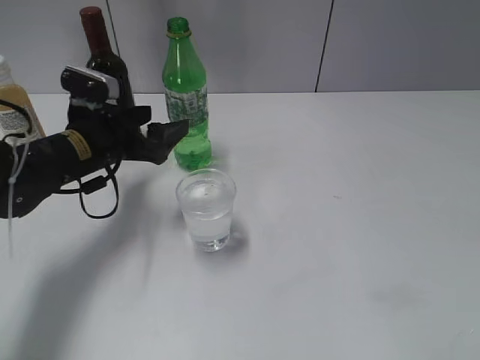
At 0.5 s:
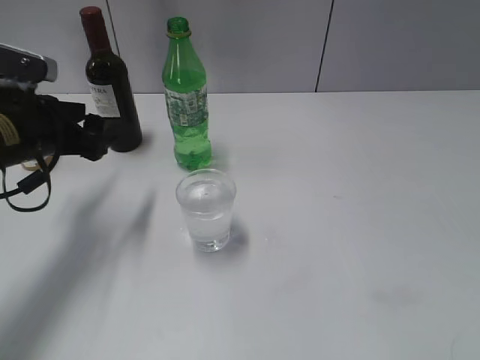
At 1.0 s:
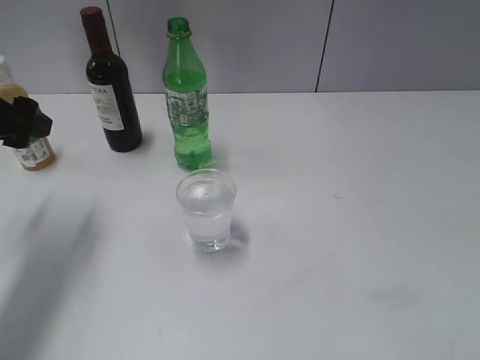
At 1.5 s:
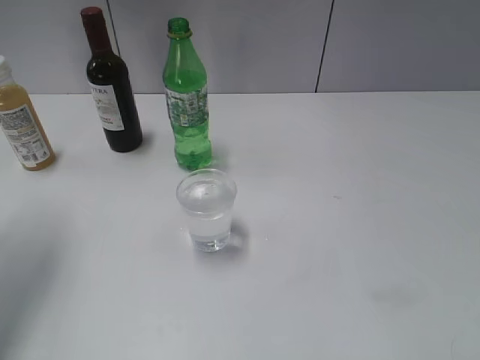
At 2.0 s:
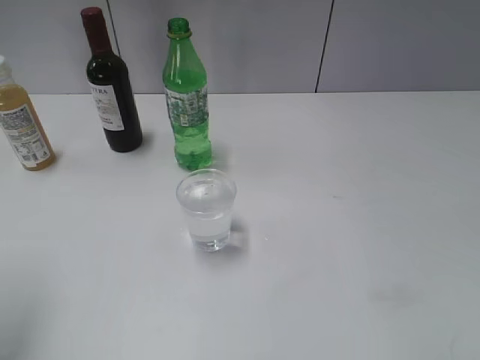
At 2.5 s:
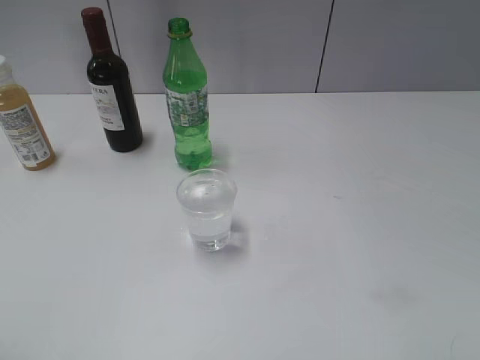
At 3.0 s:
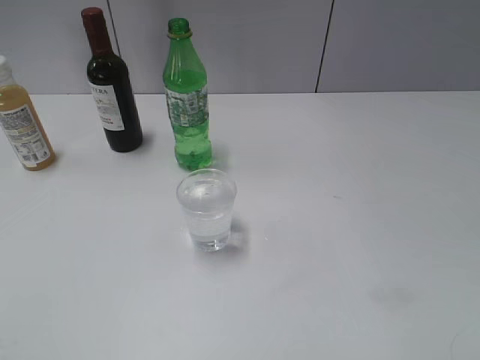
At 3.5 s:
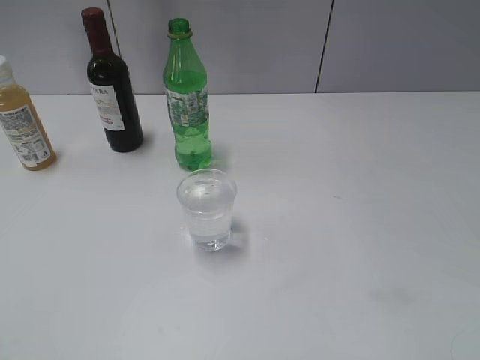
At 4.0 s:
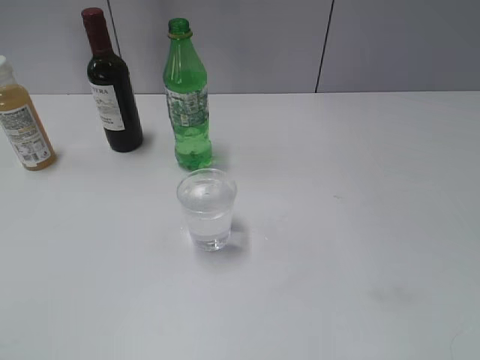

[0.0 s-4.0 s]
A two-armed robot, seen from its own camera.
0.0 to 2.0 s: The left gripper goes some 30 cm upward, backward and to the left.
2.0 to 4.0 s: The left gripper goes approximately 20 cm backward.

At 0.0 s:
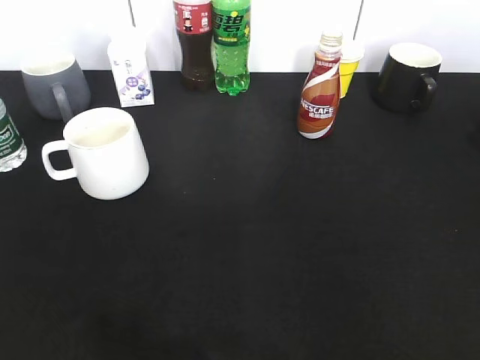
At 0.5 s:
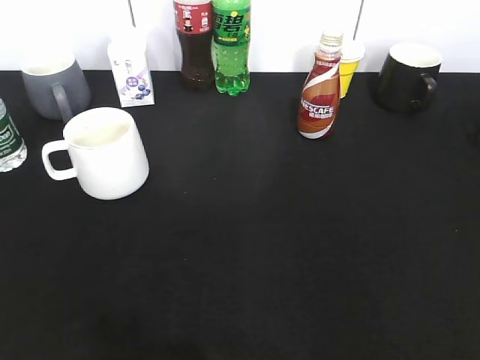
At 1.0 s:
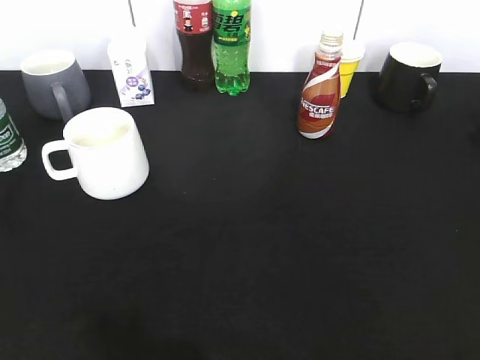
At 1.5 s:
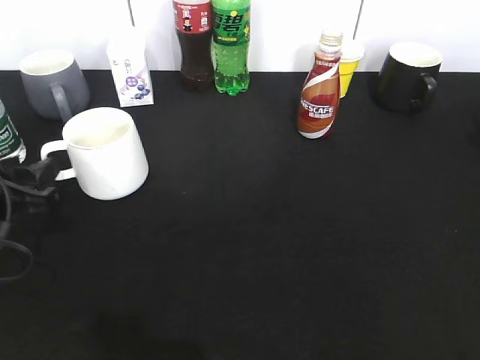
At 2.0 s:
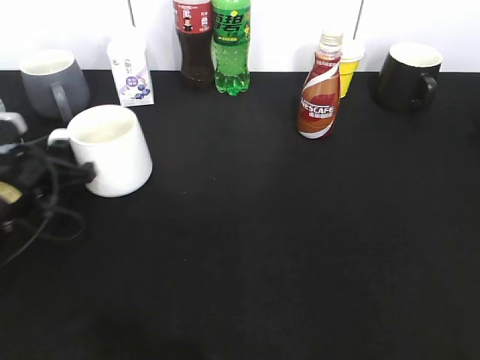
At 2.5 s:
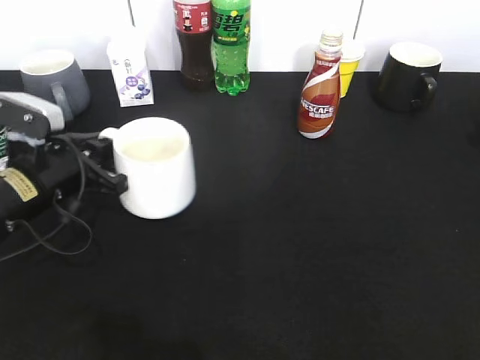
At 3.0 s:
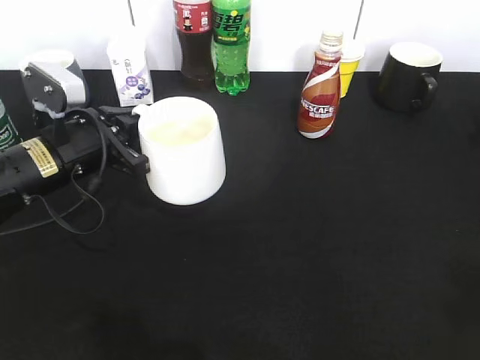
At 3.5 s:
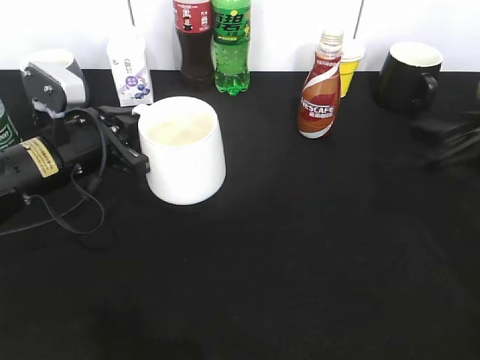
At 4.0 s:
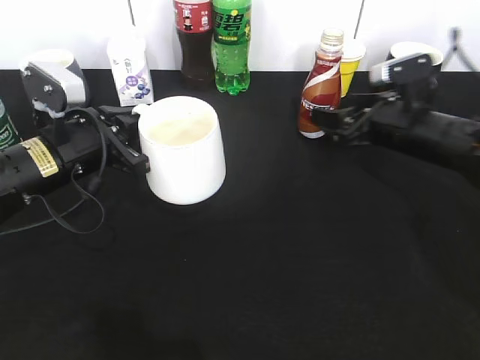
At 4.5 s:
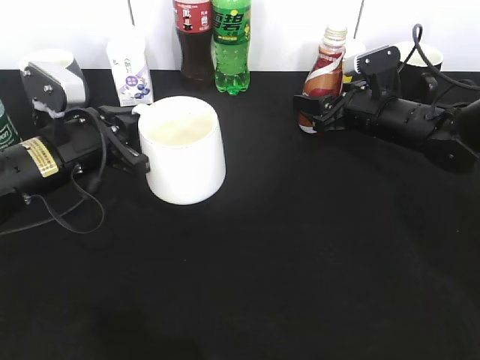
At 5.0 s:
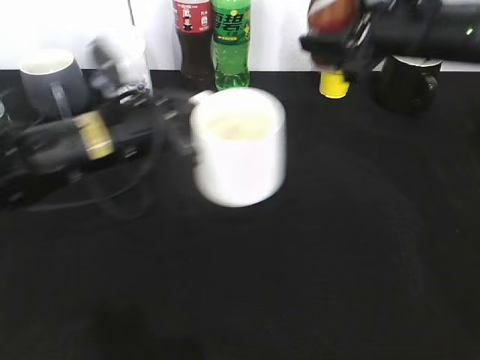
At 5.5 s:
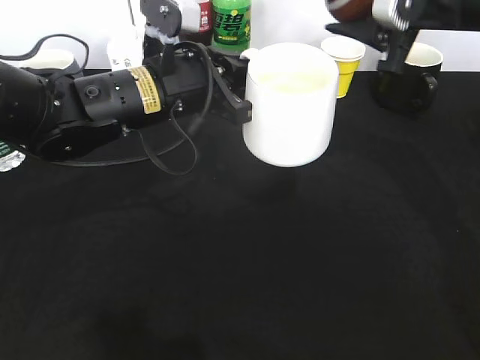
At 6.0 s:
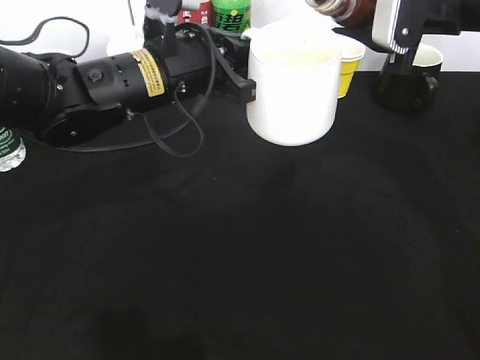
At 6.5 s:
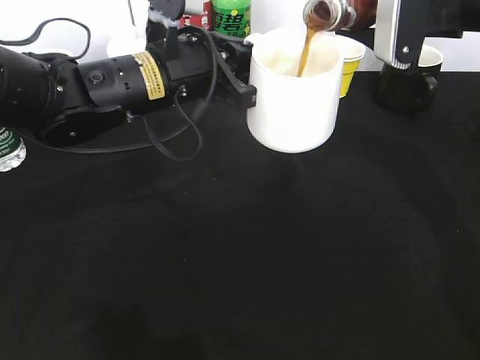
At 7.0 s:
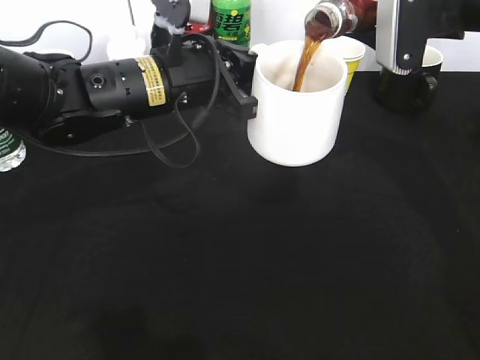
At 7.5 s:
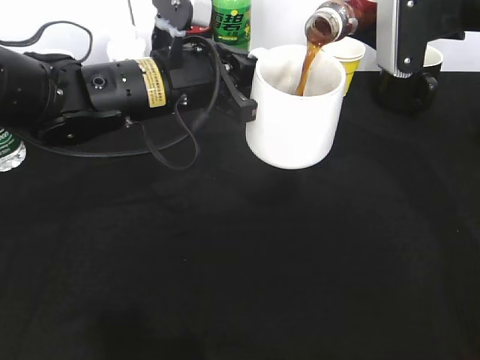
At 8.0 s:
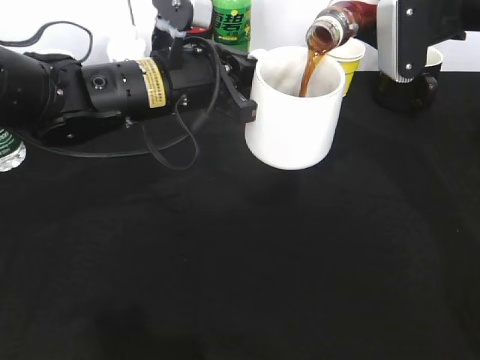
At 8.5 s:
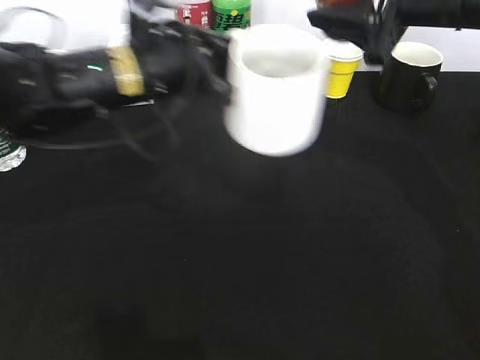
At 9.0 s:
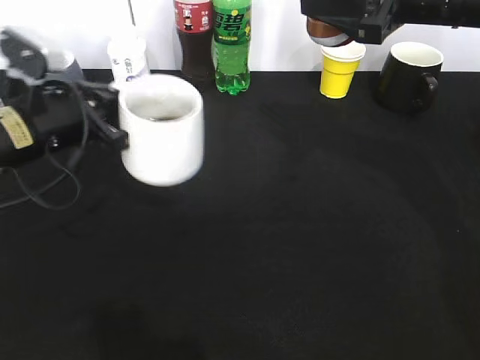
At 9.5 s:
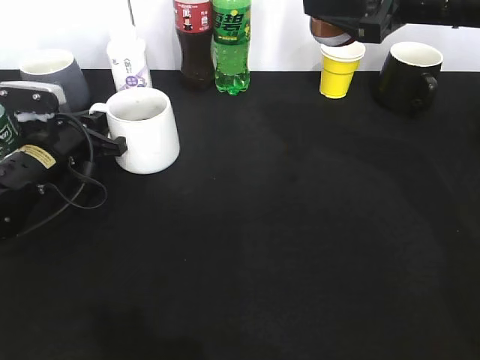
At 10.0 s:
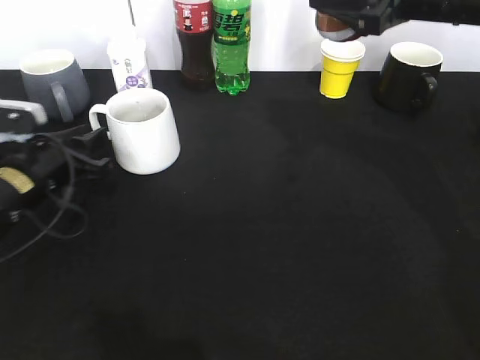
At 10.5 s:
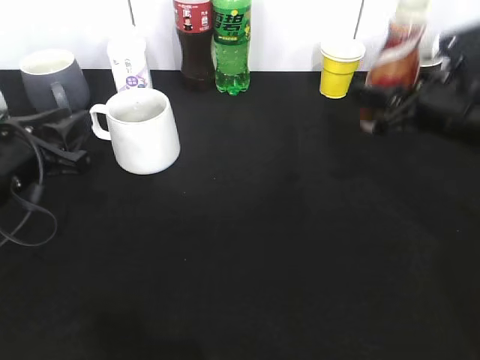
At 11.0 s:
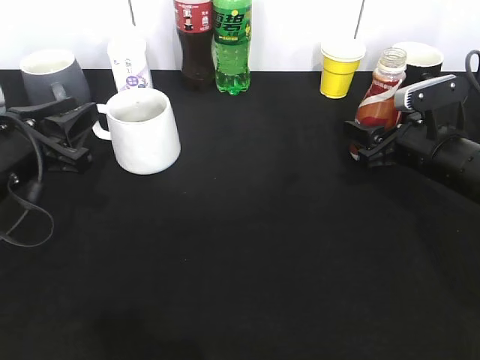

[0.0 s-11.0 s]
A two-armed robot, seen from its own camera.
Step, 1.0 to 2.0 s: Grasp the white cup with left gripper.
Step, 3.0 to 4.0 s: Grasp the bottle with coffee with right gripper.
Step, 5.0 to 8.5 s: Pour the coffee from bottle to cup with right gripper.
Step, 9.0 to 10.0 s: Place the white cup on the table with left gripper.
0.0 to 2.0 s: The left gripper shifts some 35 cm forward and downward, and closes up.
2.0 to 3.5 s: The right gripper is displaced forward and downward by approximately 30 cm; the left gripper goes some 5 cm to the right, and closes.
3.5 to 5.5 s: The left gripper travels to the right and upward by approximately 15 cm. The right gripper goes roughly 15 cm upward, forward and to the left, and closes its fingers.
7.5 to 9.0 s: The left gripper is displaced to the left by roughly 15 cm.
9.0 to 11.0 s: The left gripper opens up. The right gripper is displaced downward by about 20 cm.

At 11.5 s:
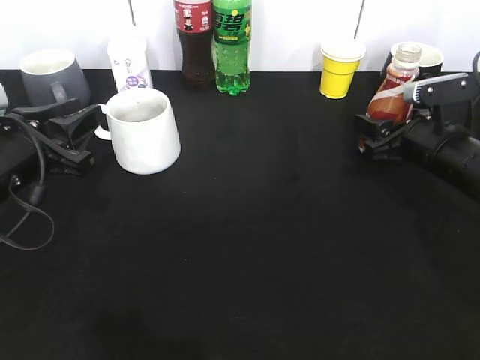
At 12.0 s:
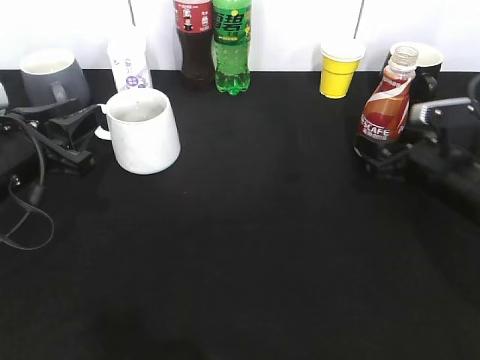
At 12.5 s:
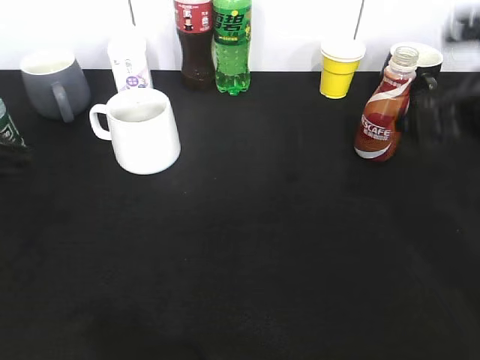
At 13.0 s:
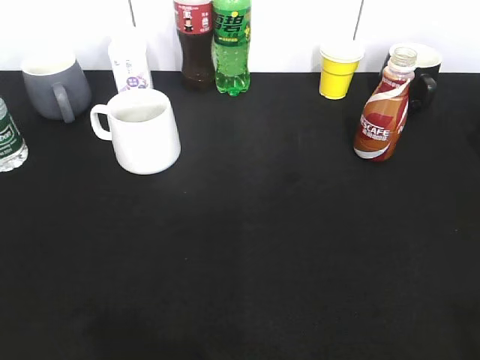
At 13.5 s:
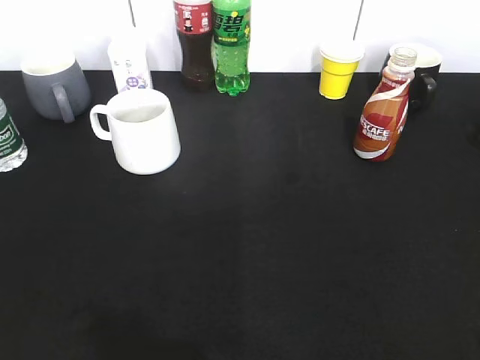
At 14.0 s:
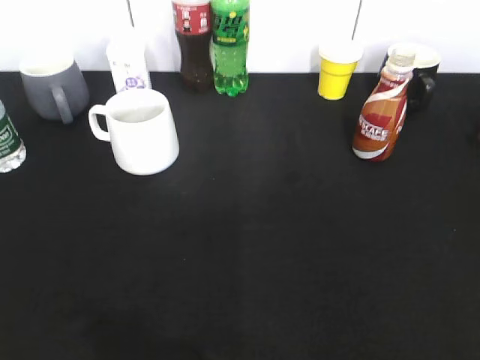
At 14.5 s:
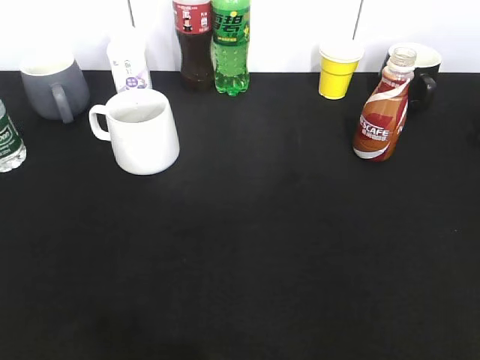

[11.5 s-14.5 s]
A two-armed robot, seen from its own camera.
11.5 to 13.0 s: The two grippers go roughly 35 cm backward and upward. The right gripper opens its fingers.

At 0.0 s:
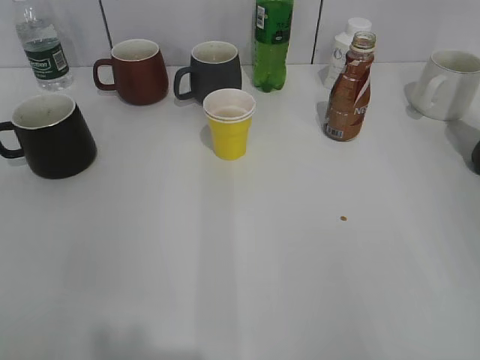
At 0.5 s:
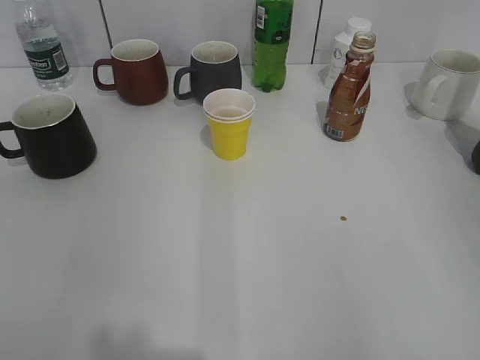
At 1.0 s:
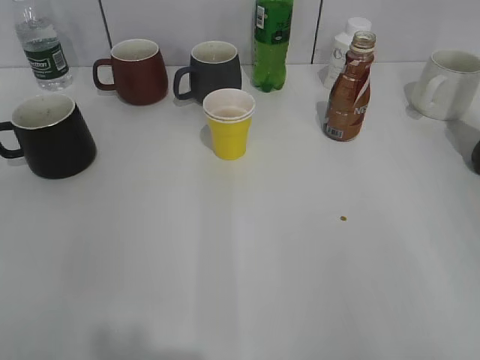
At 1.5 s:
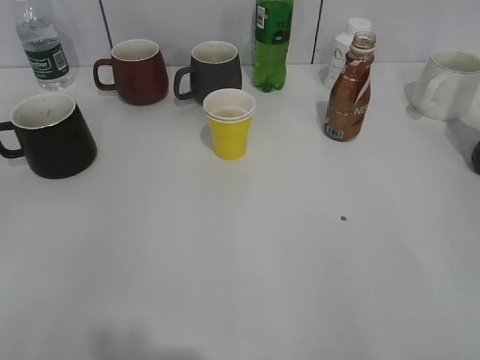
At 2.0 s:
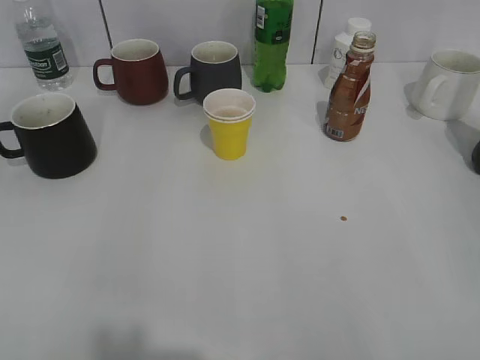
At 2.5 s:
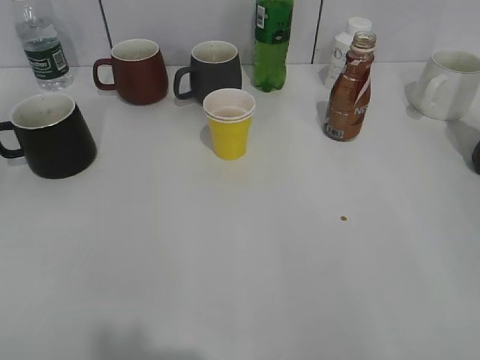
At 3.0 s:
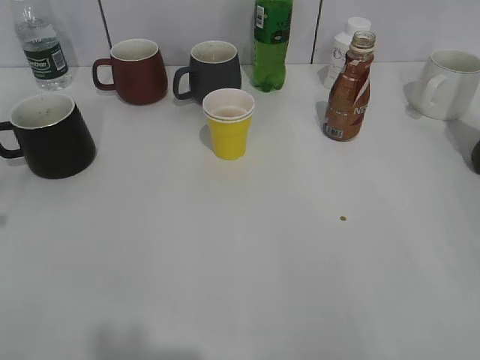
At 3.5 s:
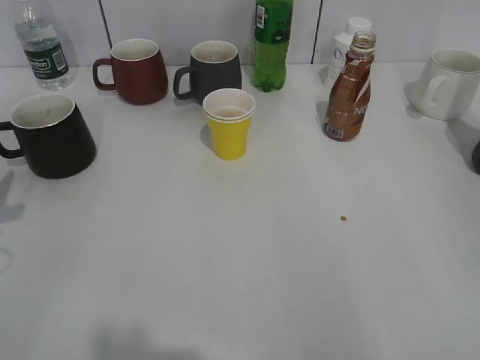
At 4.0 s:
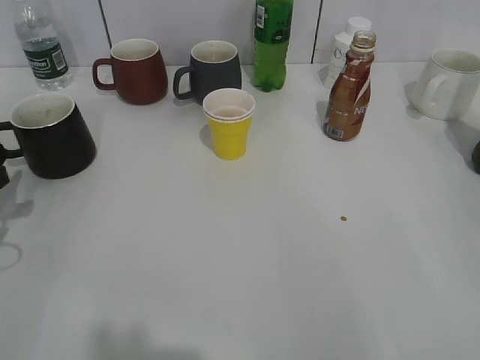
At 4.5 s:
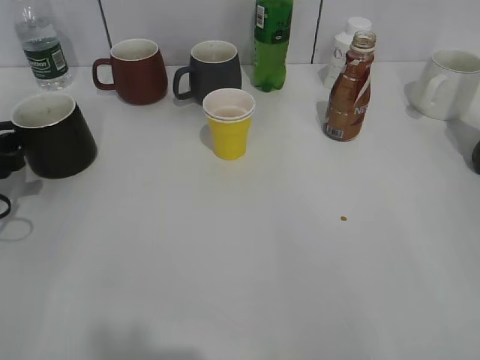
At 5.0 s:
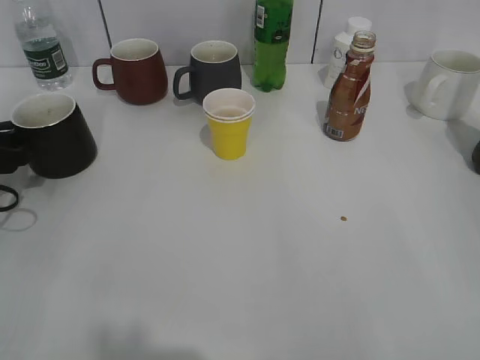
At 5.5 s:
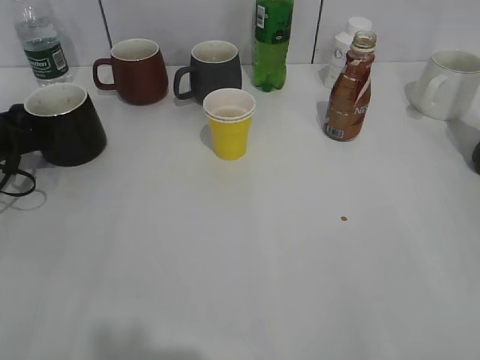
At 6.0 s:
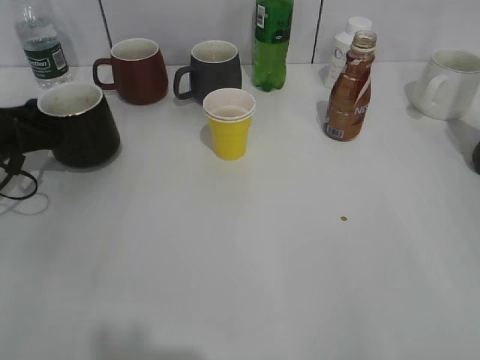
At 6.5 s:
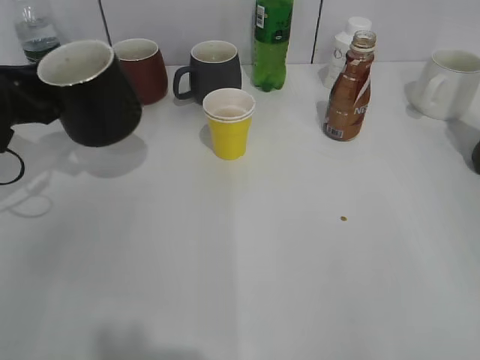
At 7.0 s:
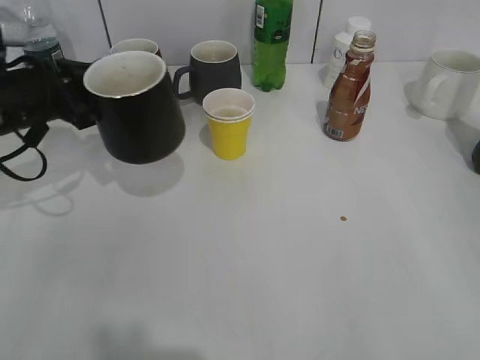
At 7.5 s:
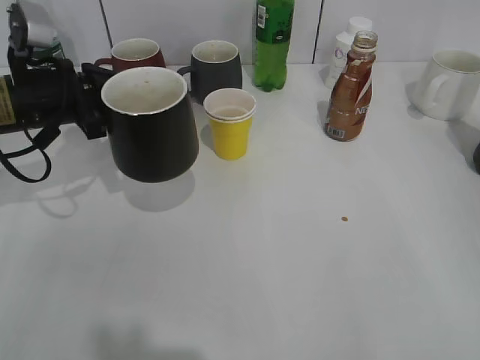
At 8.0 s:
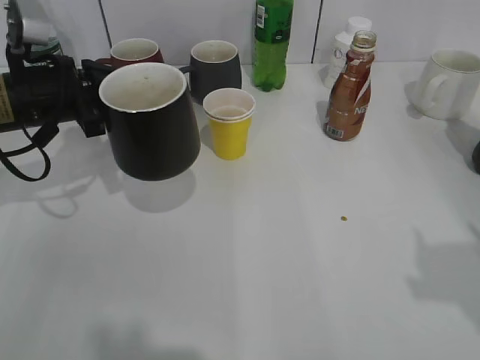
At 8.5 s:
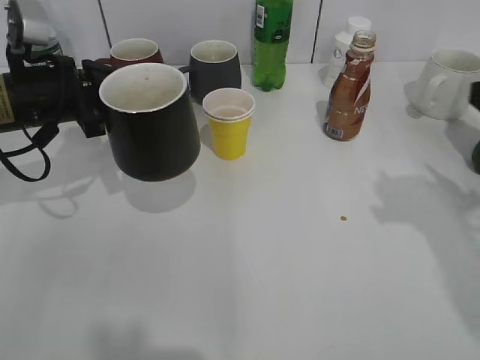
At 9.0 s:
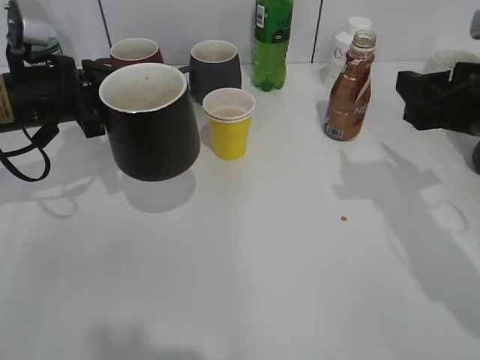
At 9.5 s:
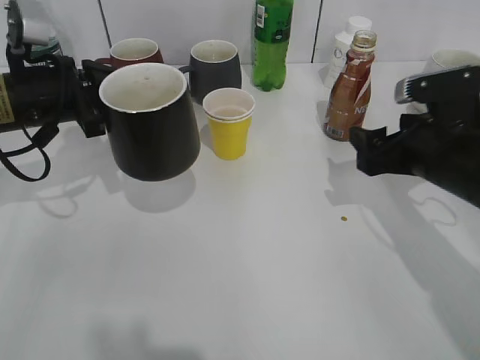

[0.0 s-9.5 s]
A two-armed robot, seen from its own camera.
Step, 1.5 to 5.5 s: Grasp the black cup with left gripper.
Step, 6.0 to 7.5 s: Lift the black cup with left gripper.
2.0 to 4.0 s: The left gripper heads downward and forward, covering about 25 cm.
4.0 to 5.5 s: The left gripper moves forward, about 10 cm, and closes its fingers.
5.5 to 7.5 s: The left gripper moves to the right and upward, approximately 15 cm.
7.5 to 9.5 s: The right gripper is displaced forward and downward by roughly 30 cm.
